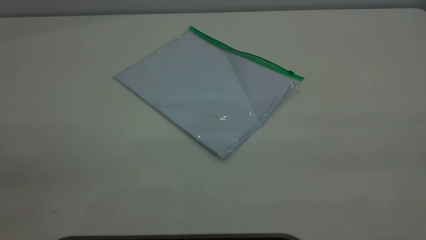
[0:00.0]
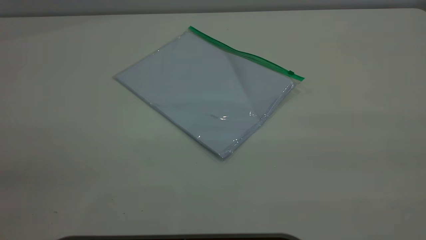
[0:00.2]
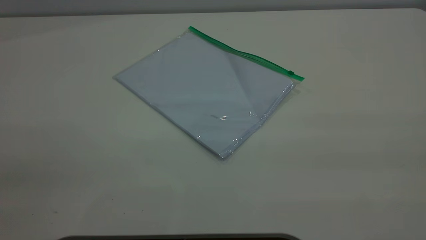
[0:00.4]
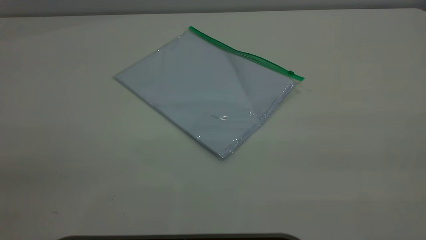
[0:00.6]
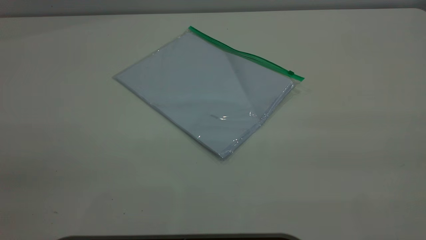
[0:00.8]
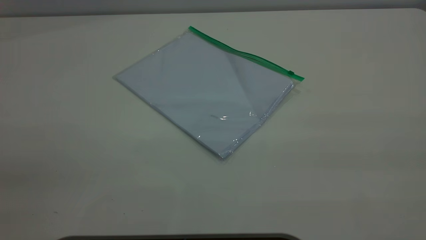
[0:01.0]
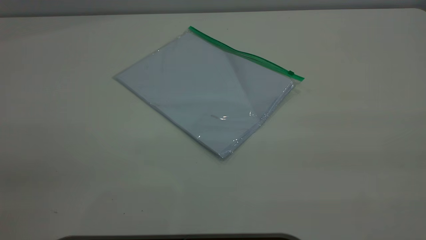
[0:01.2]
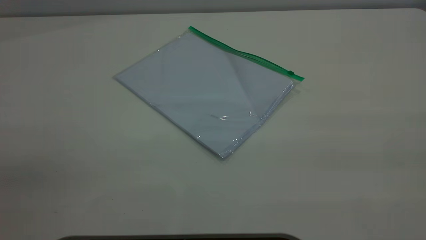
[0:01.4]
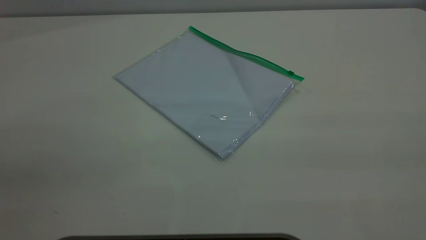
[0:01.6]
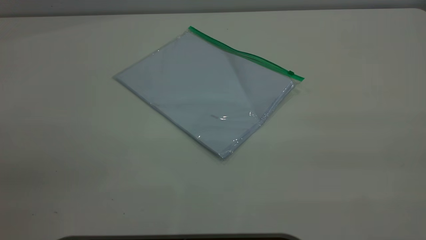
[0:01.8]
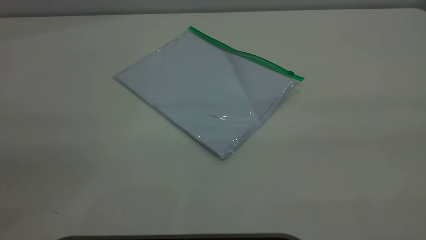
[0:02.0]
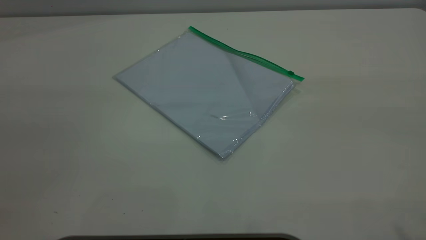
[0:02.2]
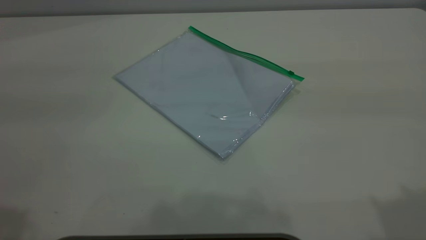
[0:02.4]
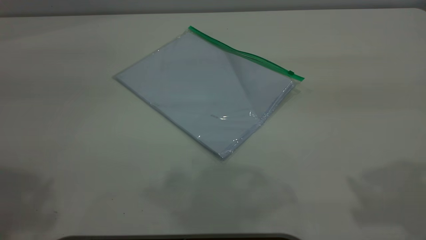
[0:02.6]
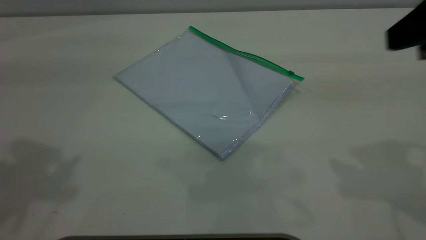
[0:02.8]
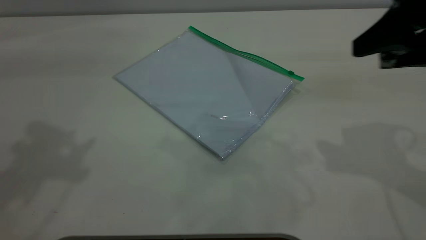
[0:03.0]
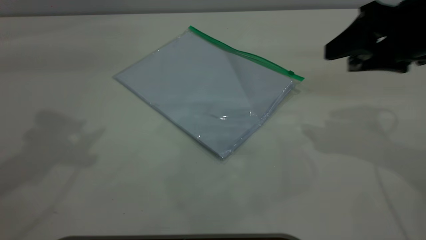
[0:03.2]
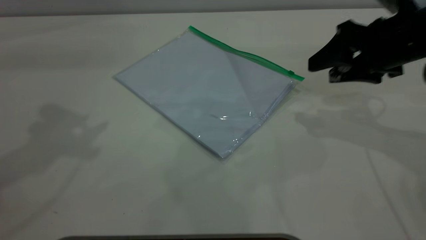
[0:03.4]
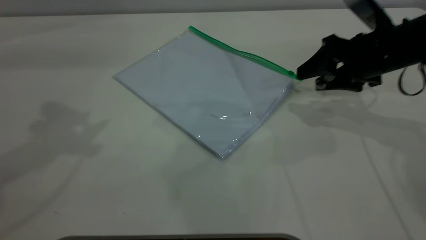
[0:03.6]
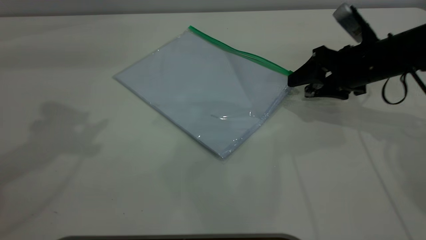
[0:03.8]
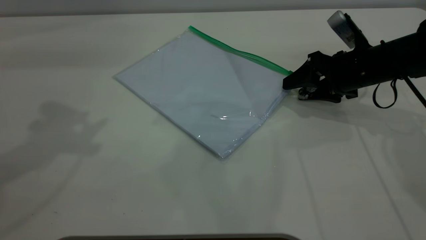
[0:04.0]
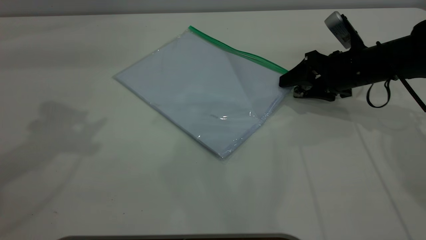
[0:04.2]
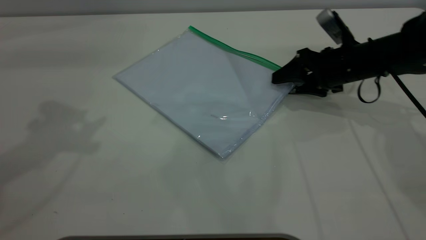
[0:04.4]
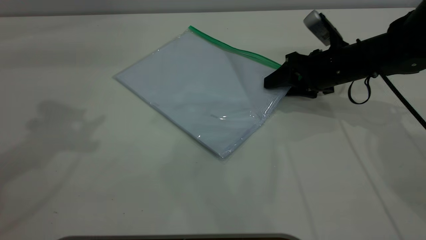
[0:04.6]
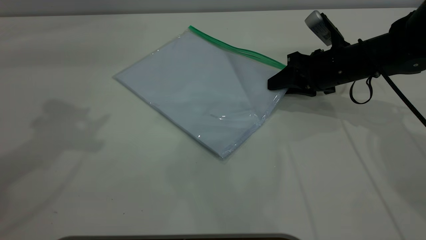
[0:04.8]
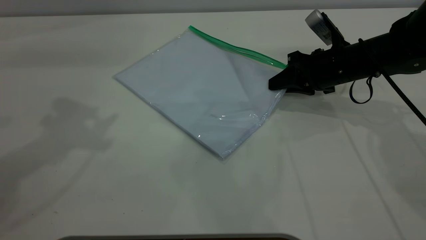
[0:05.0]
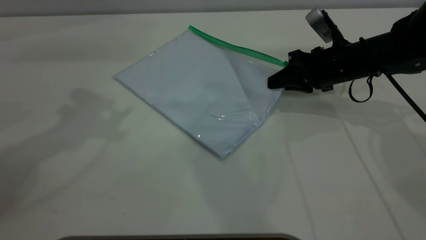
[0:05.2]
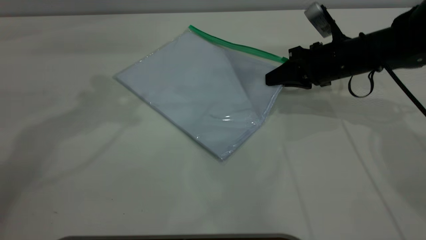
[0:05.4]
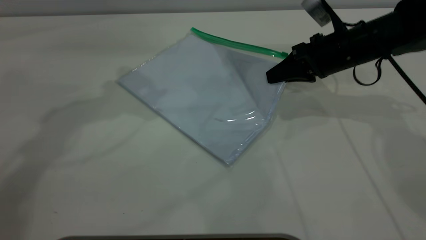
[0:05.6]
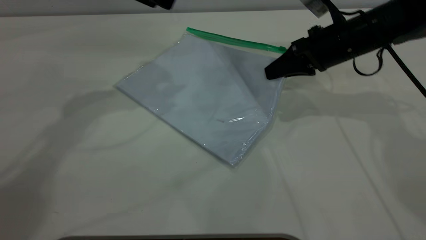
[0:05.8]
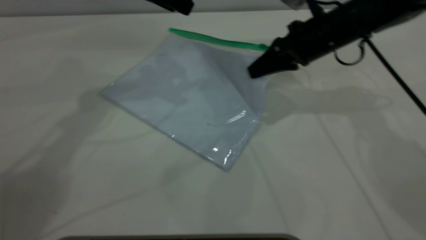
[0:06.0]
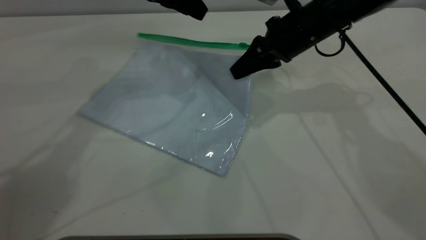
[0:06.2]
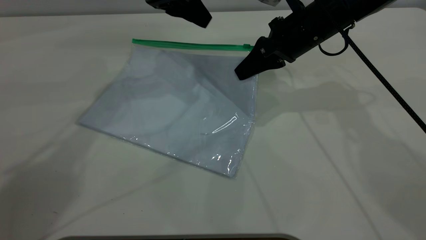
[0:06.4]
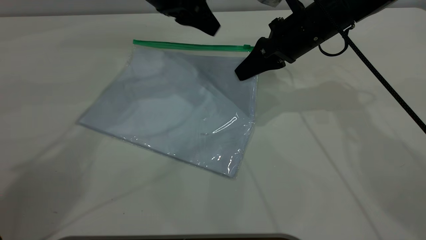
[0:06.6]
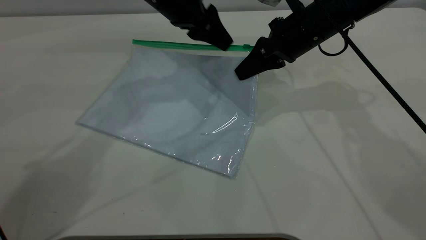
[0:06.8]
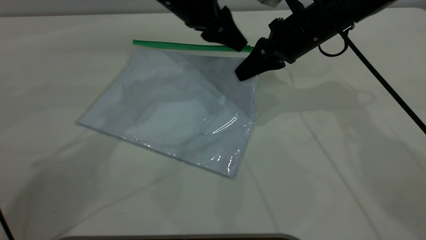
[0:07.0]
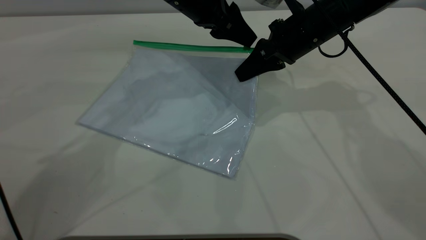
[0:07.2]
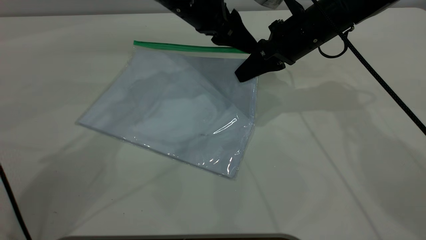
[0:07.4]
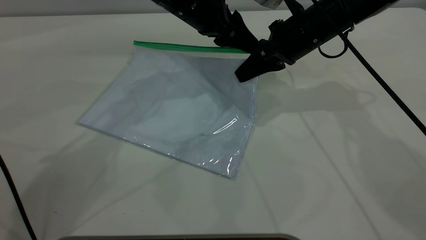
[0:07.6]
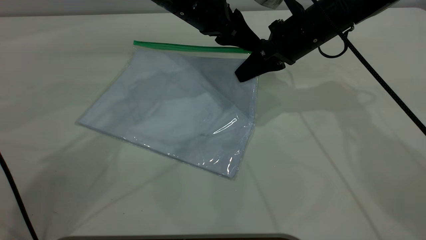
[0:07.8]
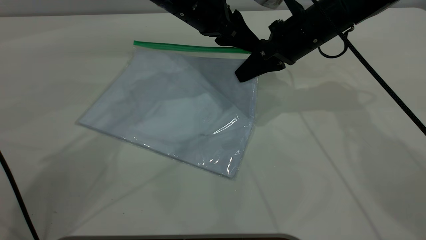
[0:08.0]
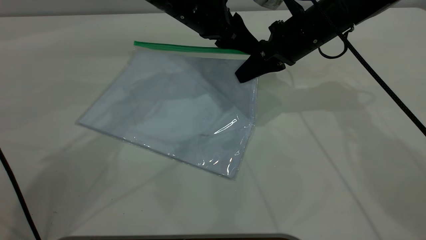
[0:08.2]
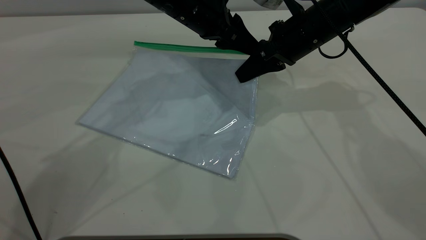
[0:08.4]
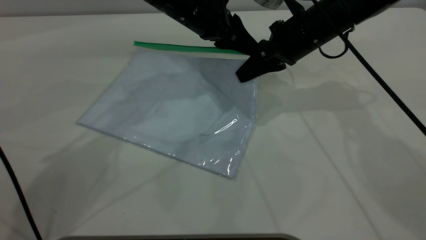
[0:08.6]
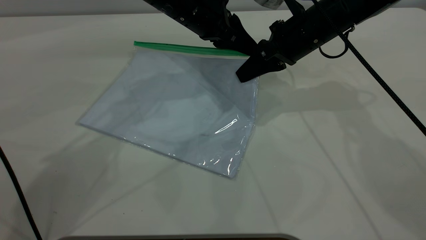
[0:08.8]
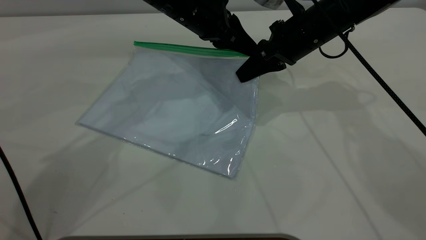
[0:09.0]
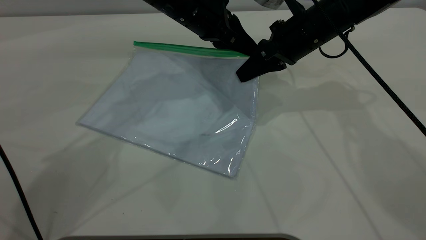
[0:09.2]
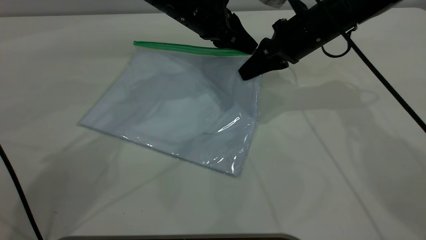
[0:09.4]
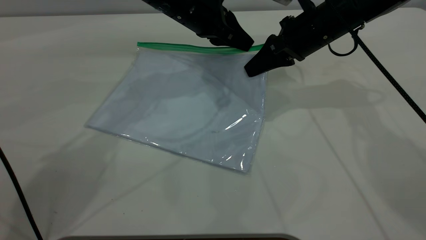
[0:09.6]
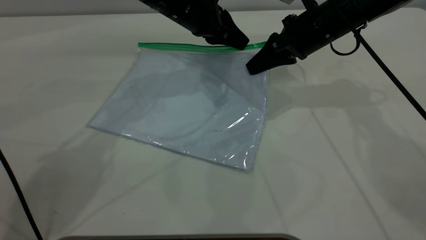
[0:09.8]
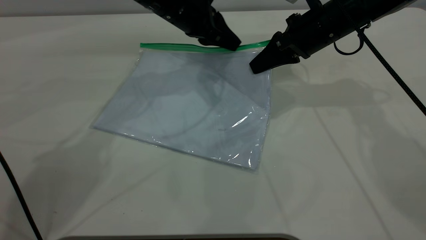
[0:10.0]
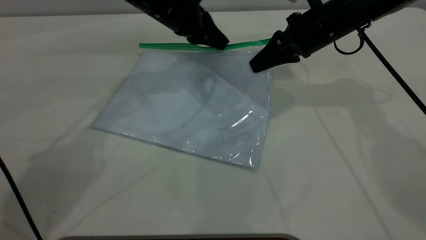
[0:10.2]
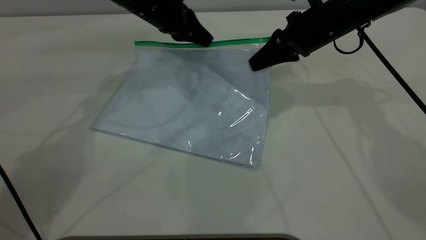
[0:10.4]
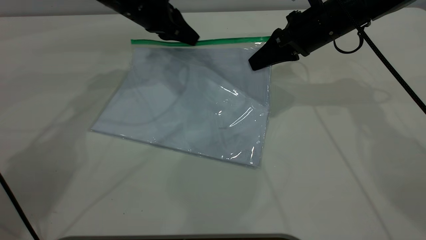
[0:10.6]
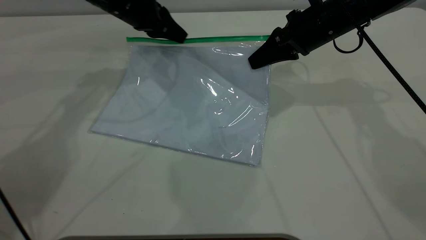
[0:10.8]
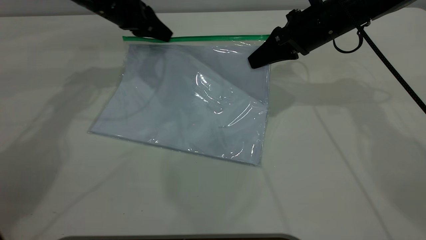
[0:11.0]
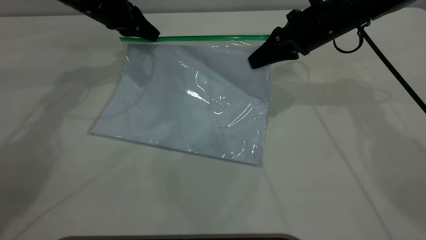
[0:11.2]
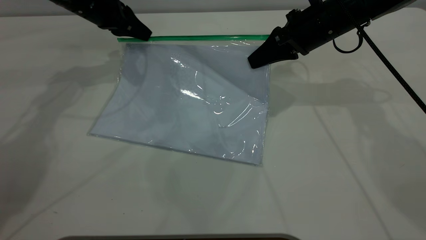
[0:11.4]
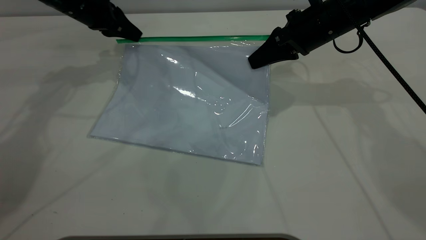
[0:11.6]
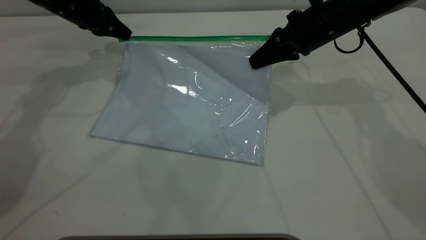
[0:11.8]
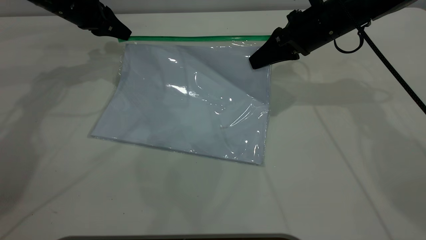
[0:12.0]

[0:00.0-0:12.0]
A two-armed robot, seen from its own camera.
Step, 0:00.0 to 0:05.4: Pick up the transparent plastic bag with the right gripper.
0:00.0 to 0:01.6: The two grippers keep their place.
0:01.6 to 0:03.0: The right gripper moves forward and downward, approximately 30 cm.
0:03.0 to 0:04.4: The right gripper moves downward and forward, about 25 cm.
0:04.4 to 0:06.0: The right gripper goes some 10 cm upward and to the left, and closes, while the left gripper moves to the right, forward and downward, roughly 20 cm.
0:06.0 to 0:07.6: The left gripper moves to the right and downward, some 10 cm.
0:07.6 to 0:09.0: The left gripper closes its fingers.
0:09.0 to 0:10.4: The left gripper travels to the left by about 10 cm.
0:10.4 to 0:12.0: The left gripper goes roughly 15 cm to the left.

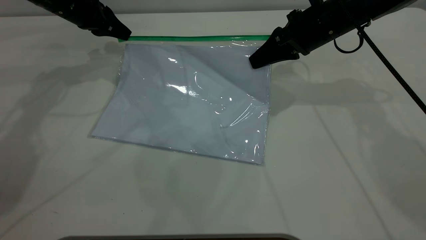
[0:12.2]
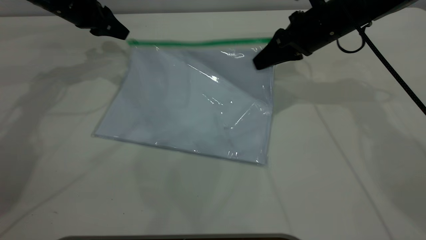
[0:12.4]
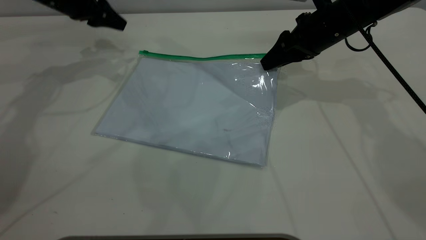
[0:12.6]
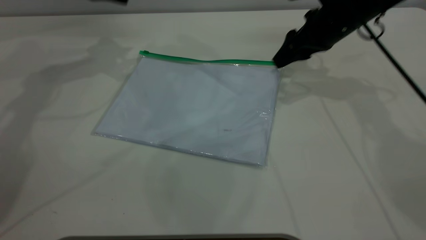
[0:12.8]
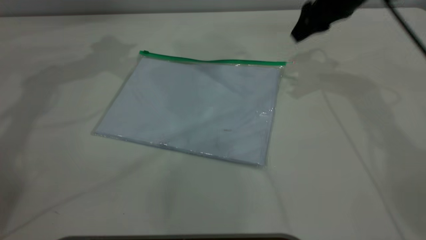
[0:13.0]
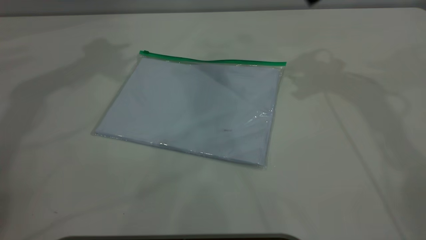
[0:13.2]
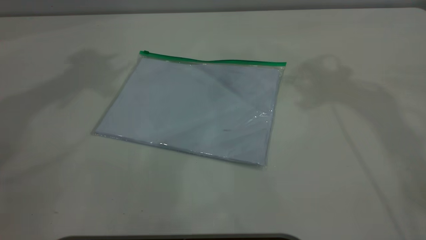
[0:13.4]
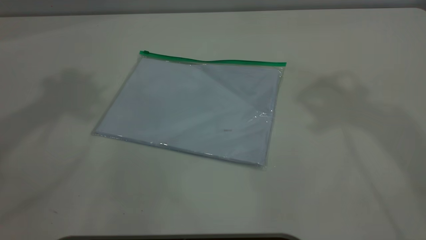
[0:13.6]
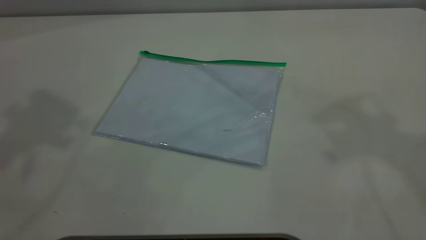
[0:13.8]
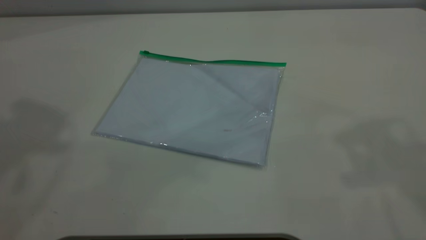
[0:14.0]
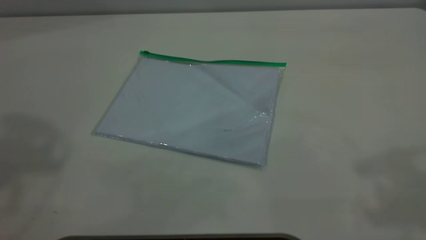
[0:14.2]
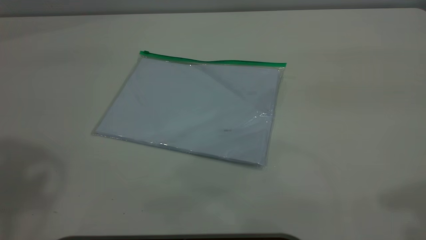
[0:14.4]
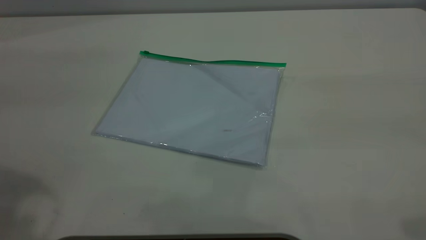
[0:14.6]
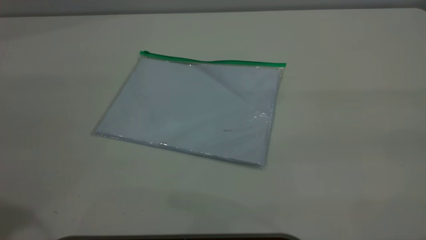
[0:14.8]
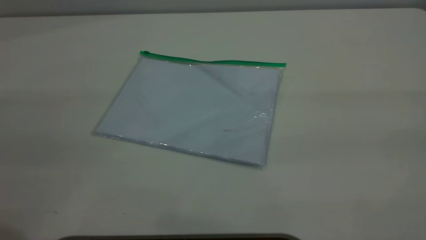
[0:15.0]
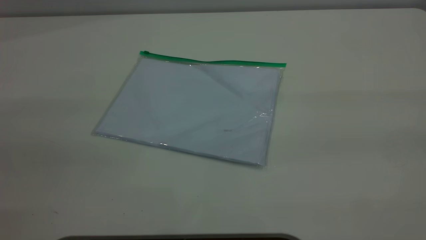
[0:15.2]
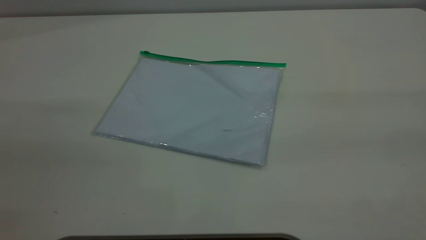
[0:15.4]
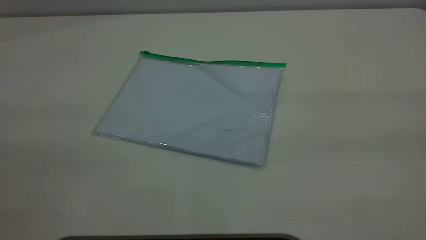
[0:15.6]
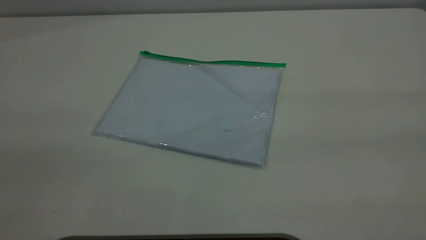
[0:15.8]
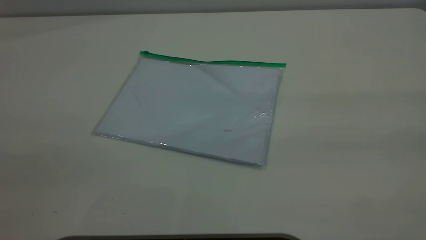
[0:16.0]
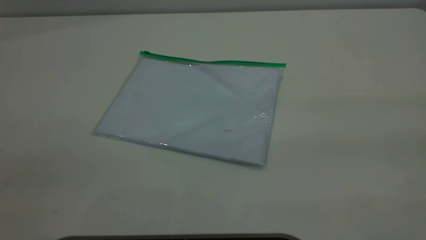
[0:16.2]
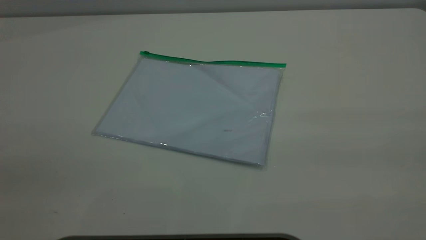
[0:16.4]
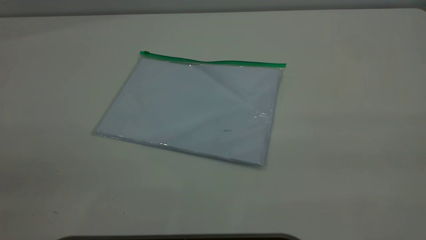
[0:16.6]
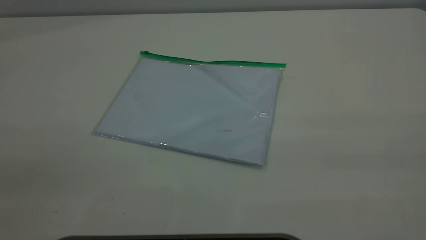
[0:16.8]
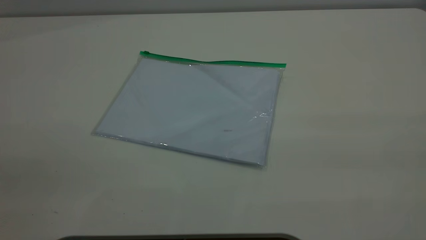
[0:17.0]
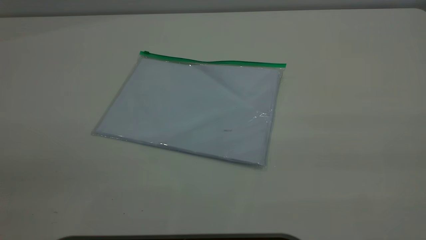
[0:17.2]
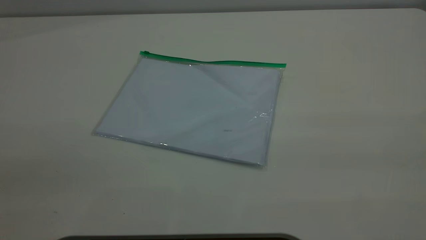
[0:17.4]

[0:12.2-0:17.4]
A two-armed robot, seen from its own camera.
Step, 0:12.6 to 0:12.8: Place the transparent plastic bag.
0:12.2 to 0:14.0: Both grippers move upward and backward, roughly 40 cm. The right gripper opens its fingers; the left gripper opens up.
